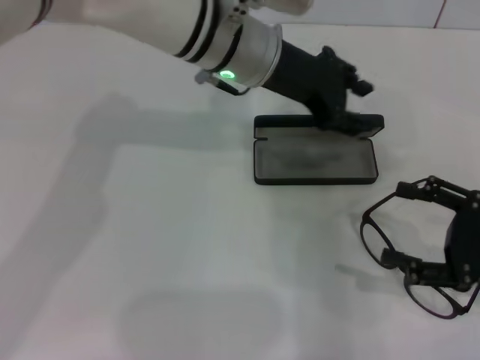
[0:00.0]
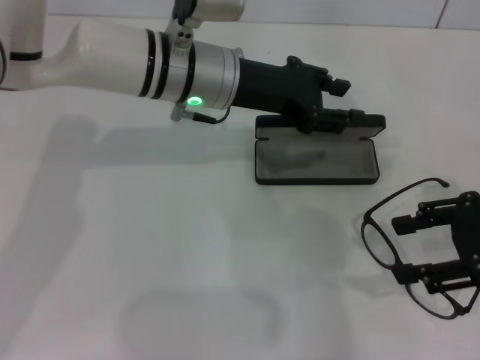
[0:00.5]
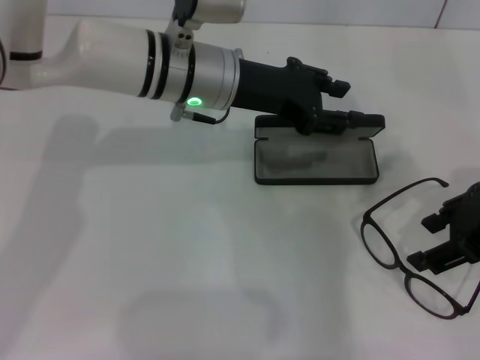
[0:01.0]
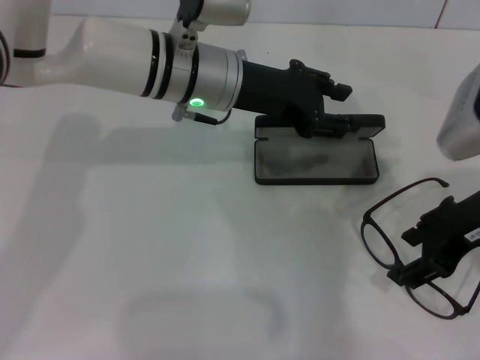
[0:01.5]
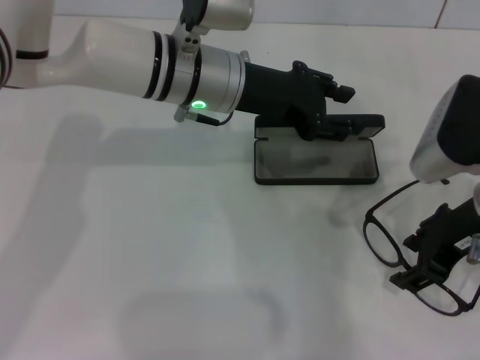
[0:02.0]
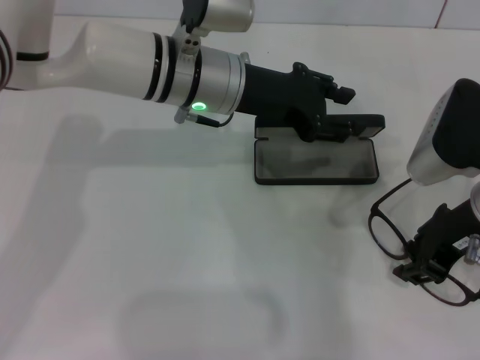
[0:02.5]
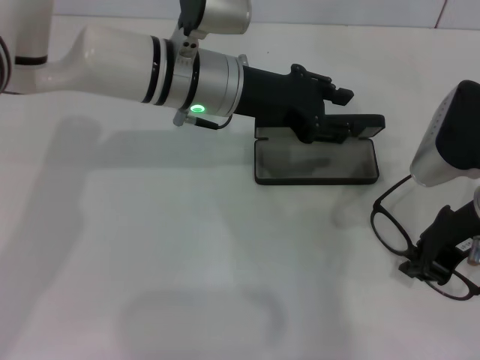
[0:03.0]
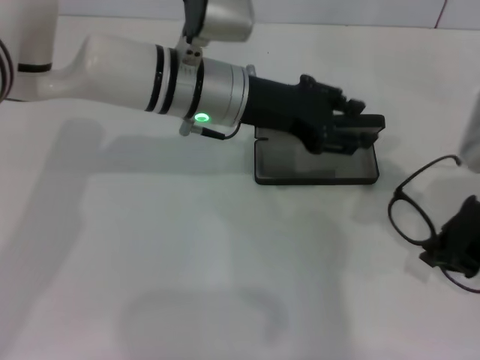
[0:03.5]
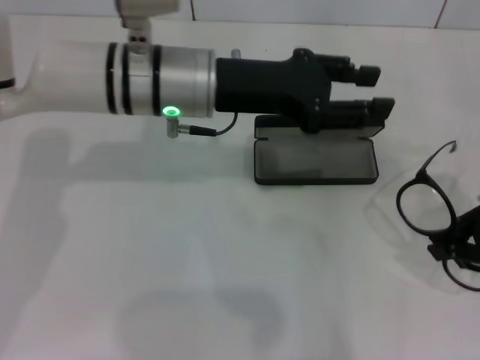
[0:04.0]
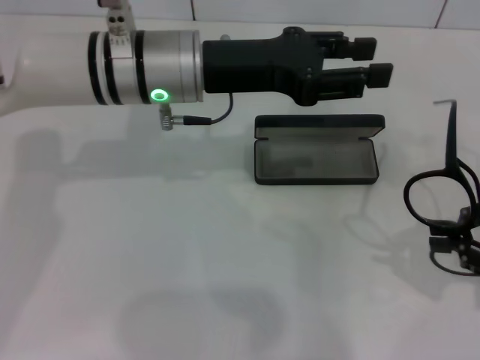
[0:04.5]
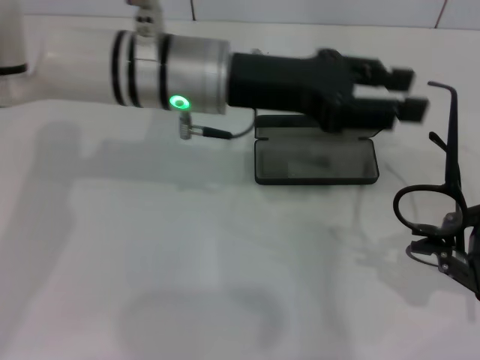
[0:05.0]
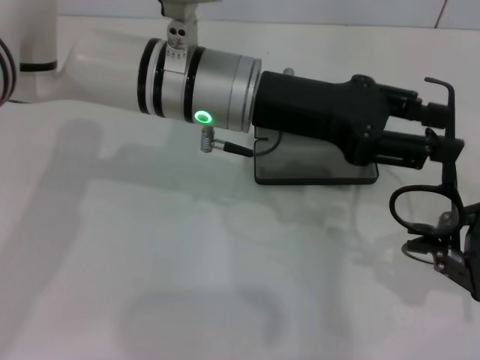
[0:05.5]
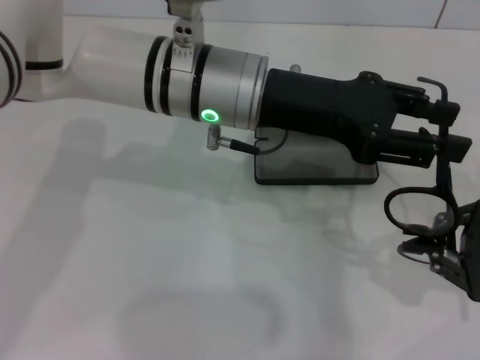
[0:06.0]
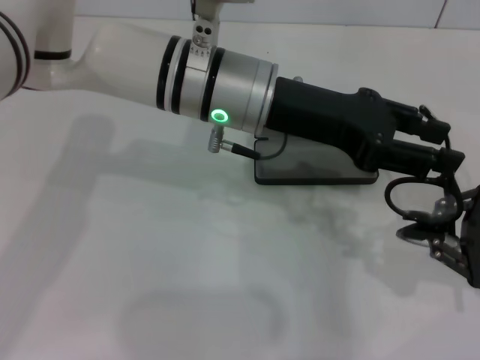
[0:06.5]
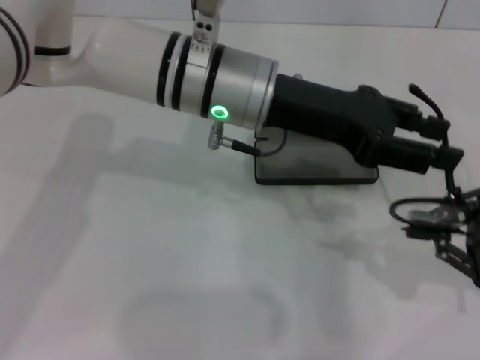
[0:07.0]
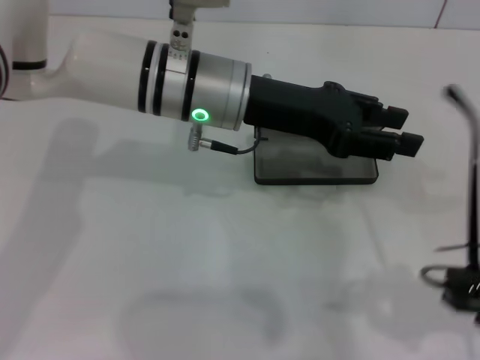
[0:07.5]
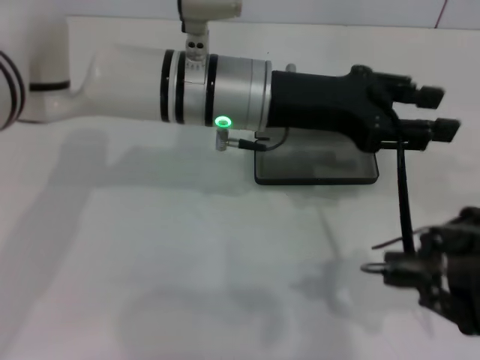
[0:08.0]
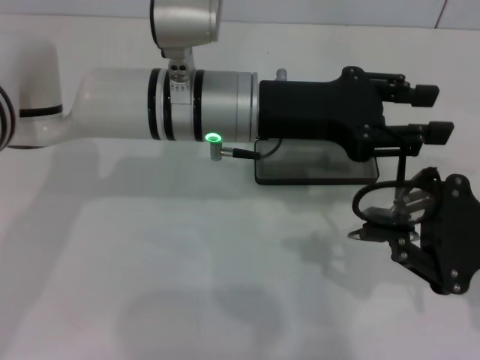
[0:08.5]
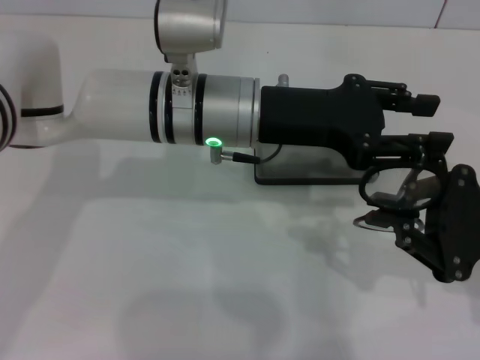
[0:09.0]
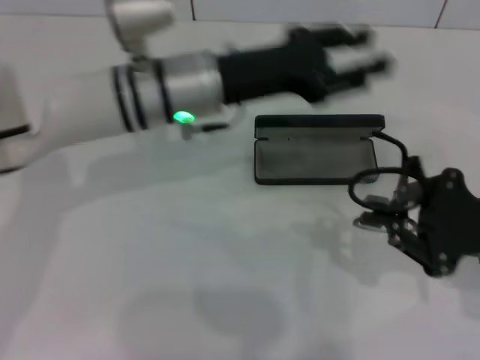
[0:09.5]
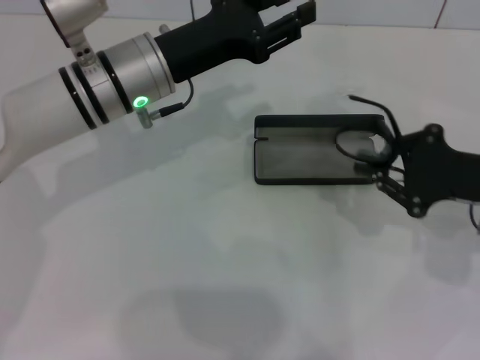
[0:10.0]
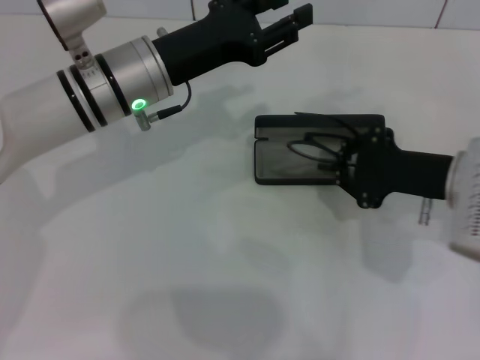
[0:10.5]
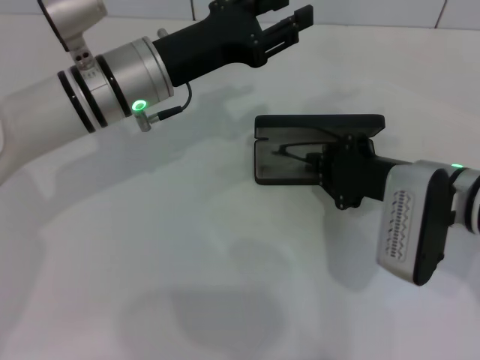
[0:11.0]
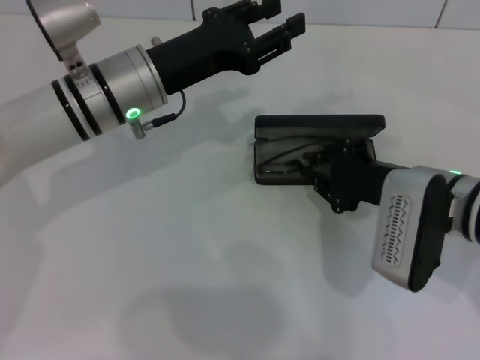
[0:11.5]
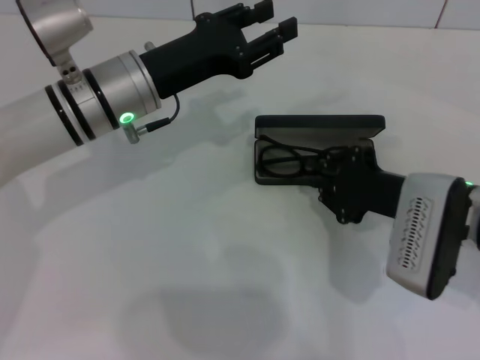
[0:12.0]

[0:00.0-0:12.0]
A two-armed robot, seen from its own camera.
Step, 0:00.0 to 0:02.5: Grab the eyeglass frame with your right hand.
Step, 0:03.5 to 0:09.0: Fold the frame with your left hand.
Step, 0:09.5 to 0:11.5: Put the glasses into the case with your right hand.
0:00.0 to 0:02.0: The right gripper travels to the left, upward and forward by some 15 cm.
0:02.0 to 0:04.0: The right gripper shifts roughly 10 cm to the right, and closes its fingers.
0:04.0 to 0:06.0: The right gripper moves downward, approximately 5 cm.
0:08.0 to 0:10.0: The right gripper heads forward, covering about 5 cm. The left gripper moves to the left, some 10 cm.
0:10.0 to 0:12.0: The right gripper is displaced to the left by some 10 cm.

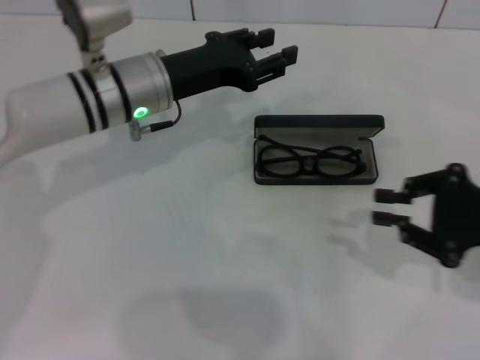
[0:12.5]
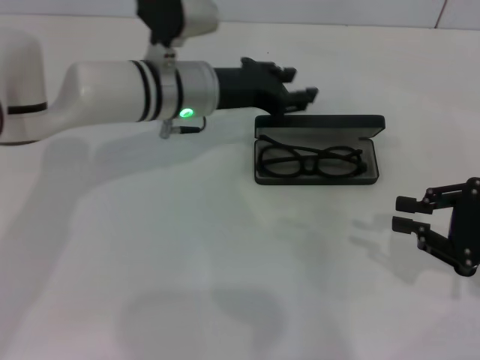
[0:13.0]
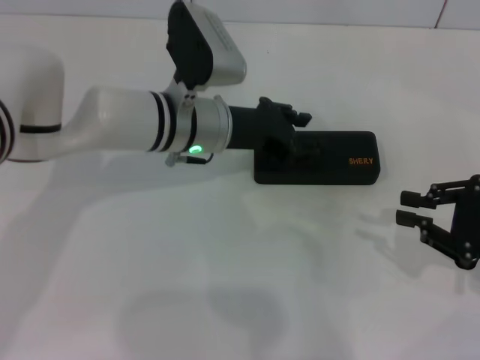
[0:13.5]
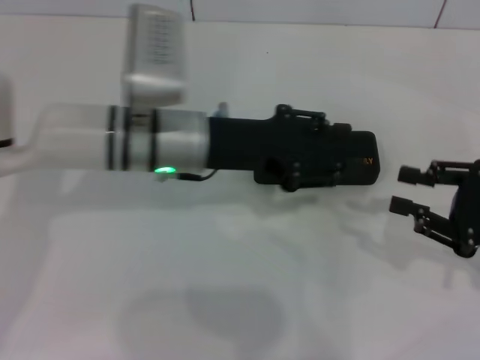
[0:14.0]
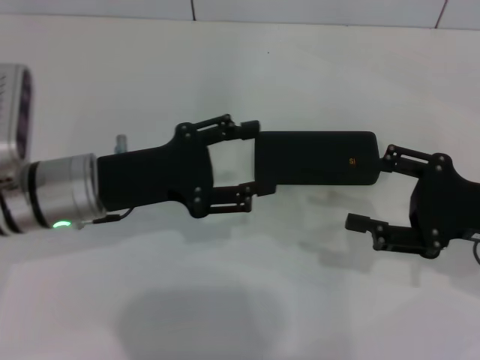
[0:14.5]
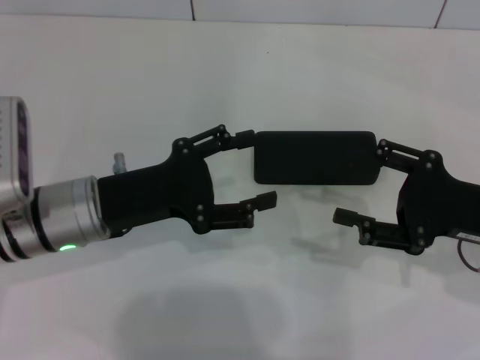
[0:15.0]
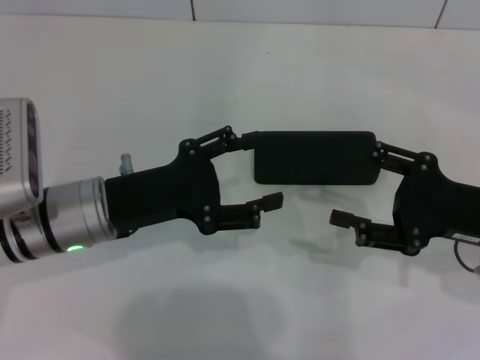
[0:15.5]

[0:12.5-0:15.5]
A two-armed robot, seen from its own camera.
0:12.5 to 0:14.0: The left gripper shifts by approximately 5 cm.
0:14.0 to 0:15.5: The left gripper is displaced to the left and backward by approximately 10 cm, and opens. Meanwhile the right gripper changes place by some 5 cm, and opens.
